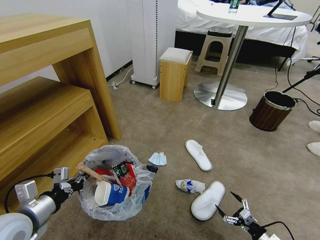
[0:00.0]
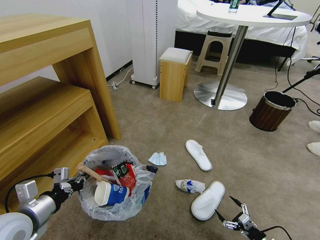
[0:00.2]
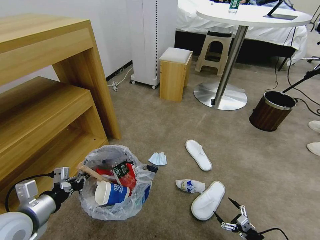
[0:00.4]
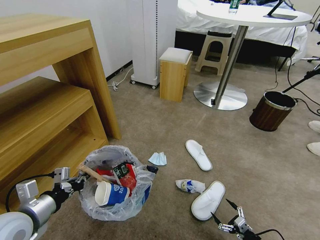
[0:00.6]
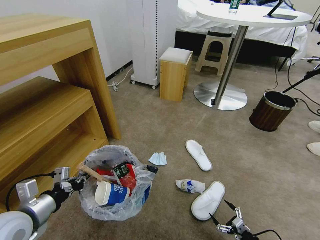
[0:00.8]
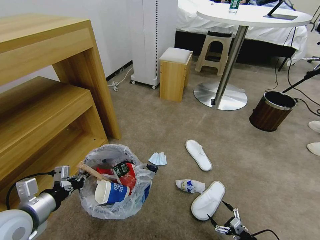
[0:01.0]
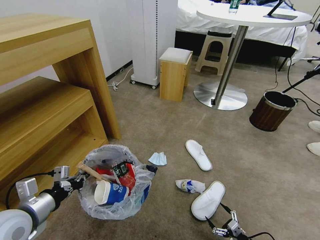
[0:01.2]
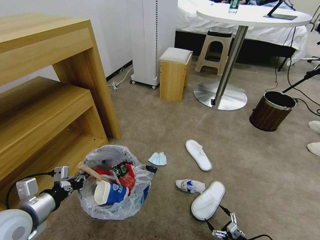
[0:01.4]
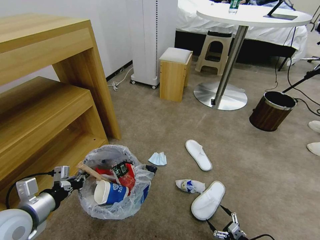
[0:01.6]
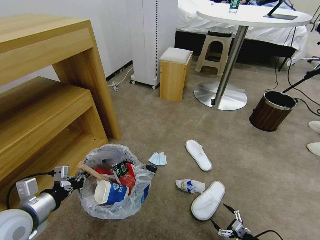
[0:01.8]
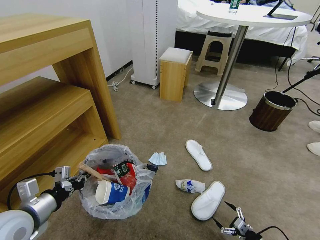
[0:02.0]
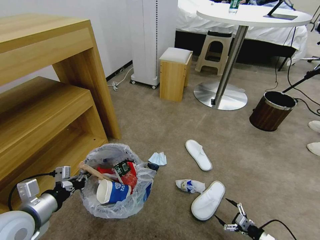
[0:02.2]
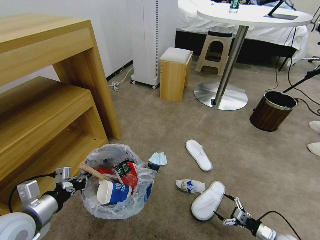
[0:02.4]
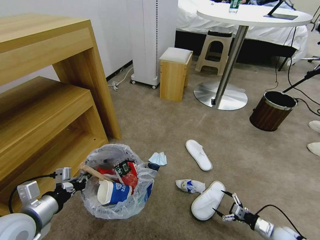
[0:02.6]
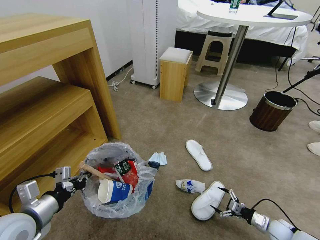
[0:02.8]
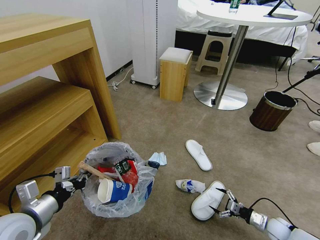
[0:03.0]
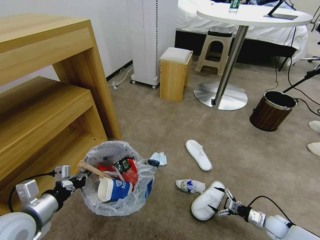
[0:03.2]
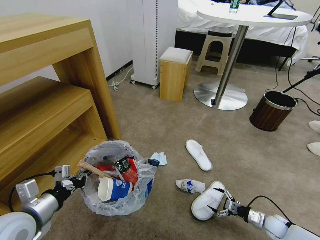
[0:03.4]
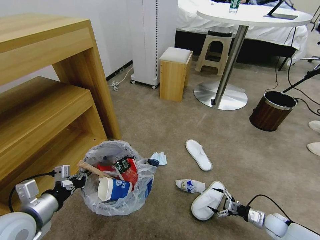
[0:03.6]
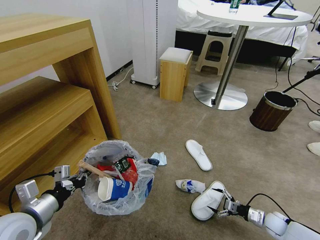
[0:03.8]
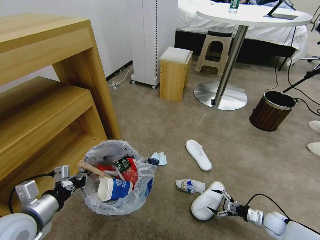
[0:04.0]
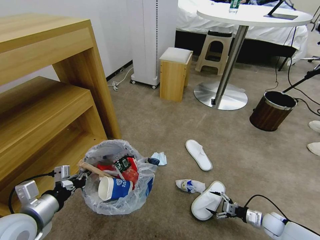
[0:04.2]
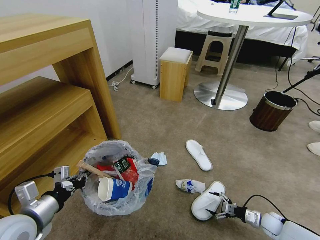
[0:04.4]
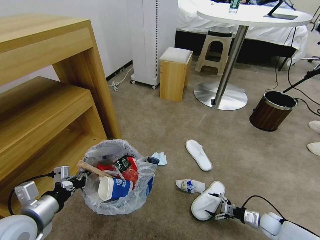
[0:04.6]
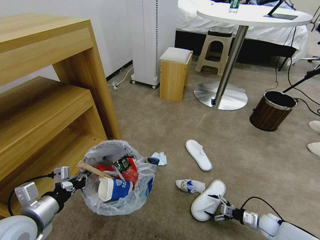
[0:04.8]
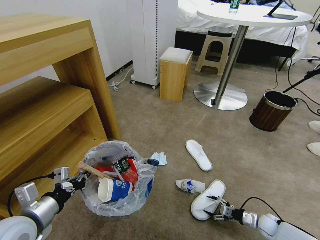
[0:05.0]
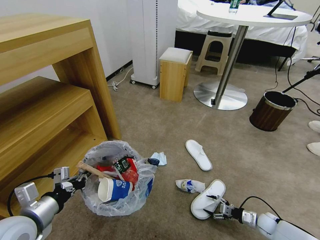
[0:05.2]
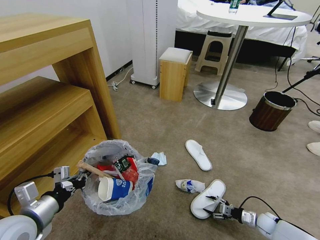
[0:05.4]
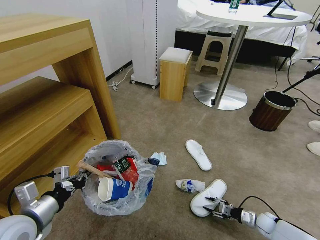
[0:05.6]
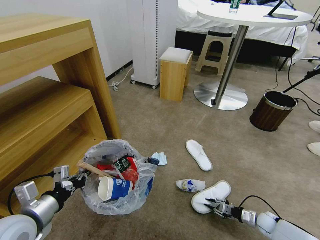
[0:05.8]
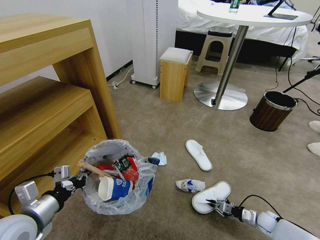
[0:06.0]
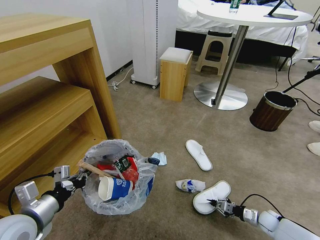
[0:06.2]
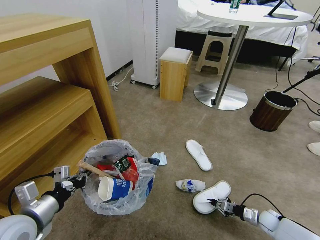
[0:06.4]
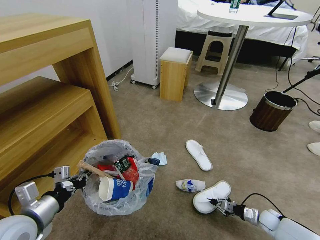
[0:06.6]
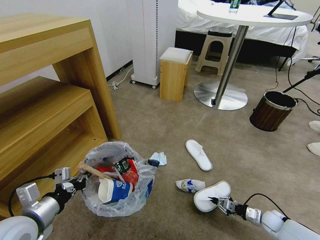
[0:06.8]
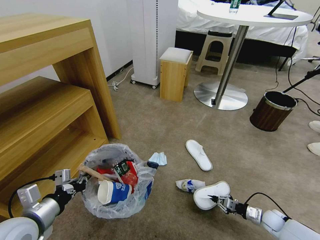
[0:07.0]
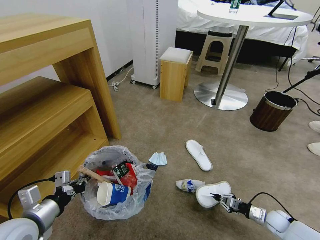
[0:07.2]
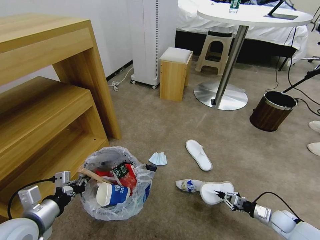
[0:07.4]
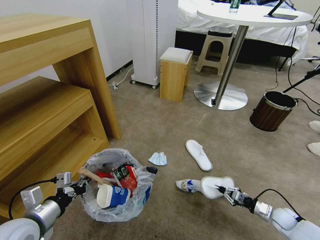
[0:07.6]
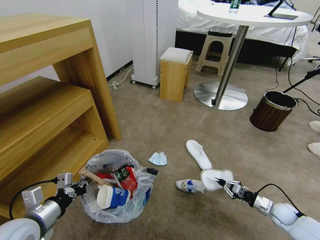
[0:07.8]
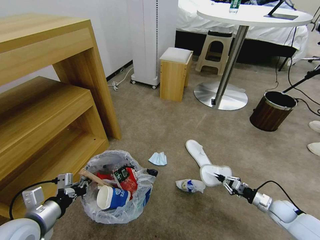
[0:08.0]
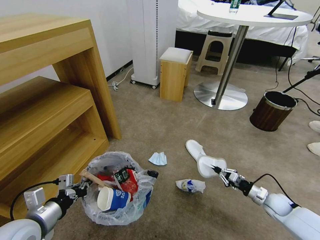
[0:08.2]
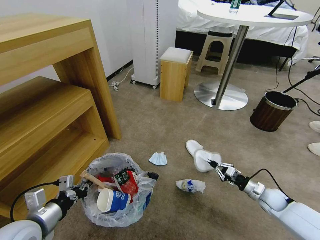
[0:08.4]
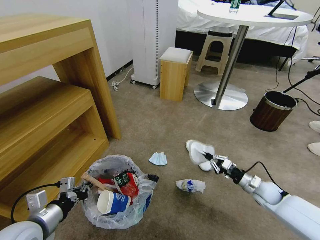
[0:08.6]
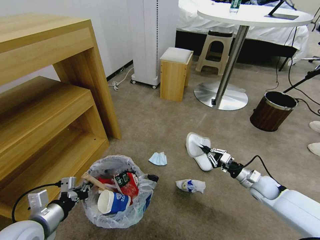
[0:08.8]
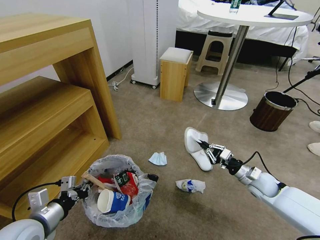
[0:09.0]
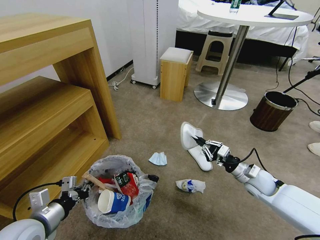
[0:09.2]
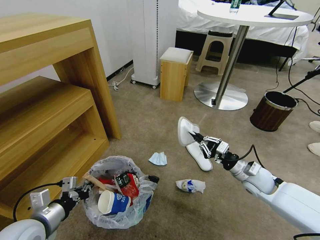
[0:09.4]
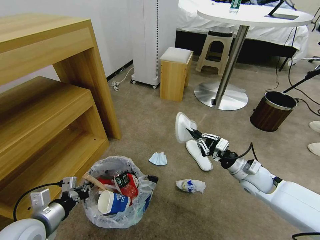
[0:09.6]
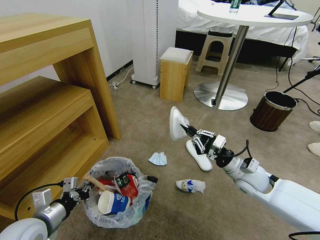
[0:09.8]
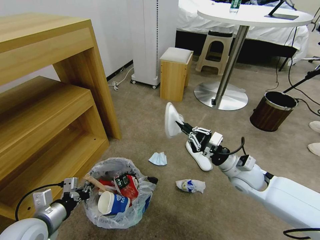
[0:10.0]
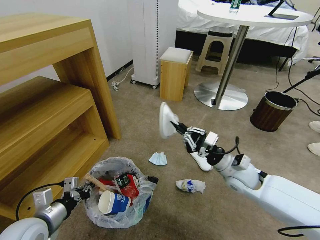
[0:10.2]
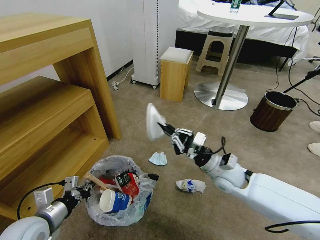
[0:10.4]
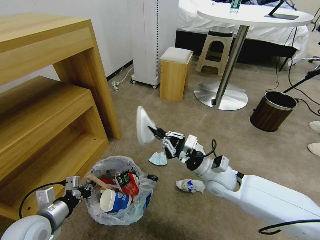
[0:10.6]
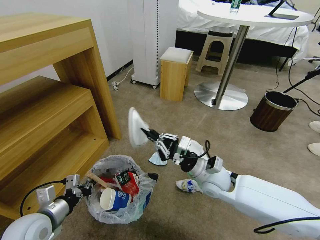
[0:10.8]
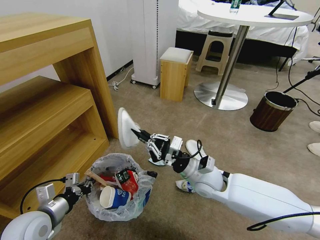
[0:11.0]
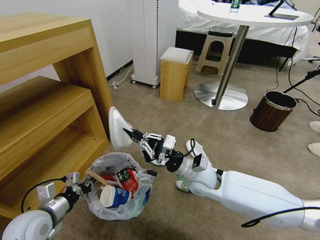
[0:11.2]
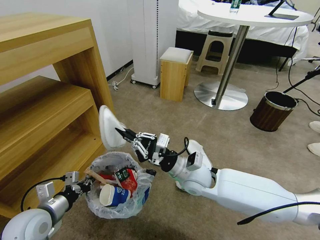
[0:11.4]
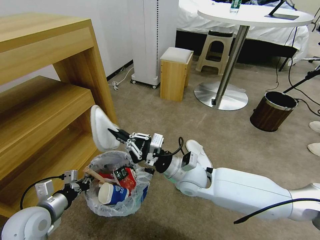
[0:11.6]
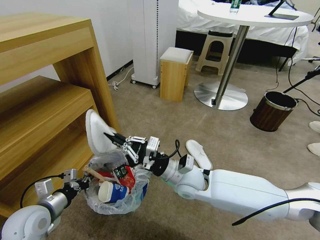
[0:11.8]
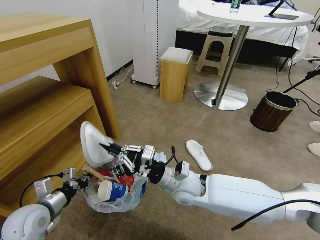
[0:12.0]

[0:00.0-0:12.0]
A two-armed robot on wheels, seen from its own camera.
Task of the whole recording: Pick up the trash bin and place the garbage on the floor into it.
0:00.0 to 0:01.6: The right gripper ends up roughly 5 cm from where it was.
0:01.6 to 0:03.0: The right gripper moves forward and to the right, some 15 cm.
0:03.0 to 0:04.4: The grippers move only a little.
0:04.4 to 0:06.0: The right gripper closes up.
0:06.0 to 0:07.6: The right gripper shifts approximately 5 cm upward.
0:07.6 to 0:09.0: The right gripper goes some 20 cm upward, to the left and forward.
0:09.0 to 0:10.4: The right gripper goes some 20 cm to the left and upward.
0:10.4 to 0:12.0: The right gripper is displaced to the left by approximately 15 cm.

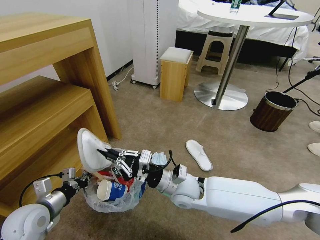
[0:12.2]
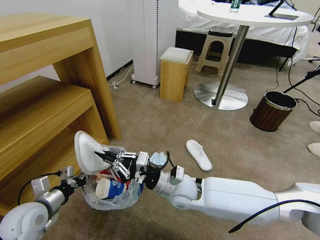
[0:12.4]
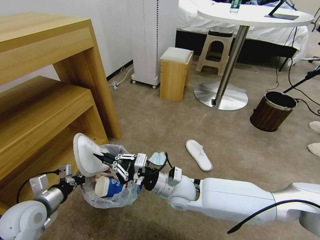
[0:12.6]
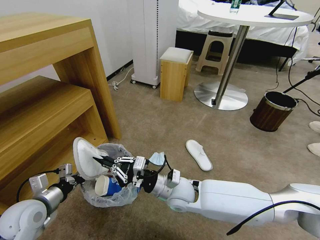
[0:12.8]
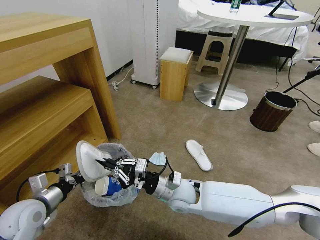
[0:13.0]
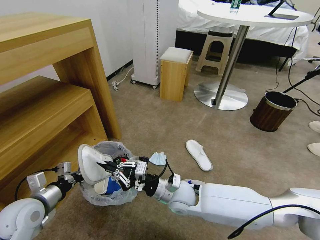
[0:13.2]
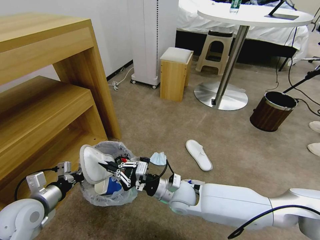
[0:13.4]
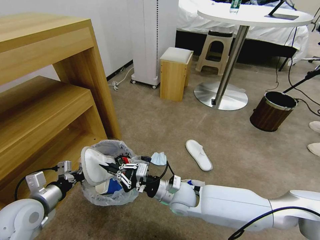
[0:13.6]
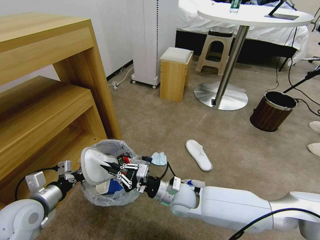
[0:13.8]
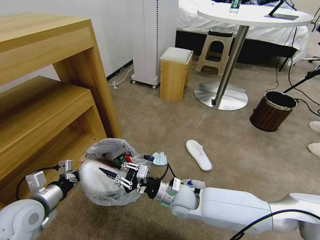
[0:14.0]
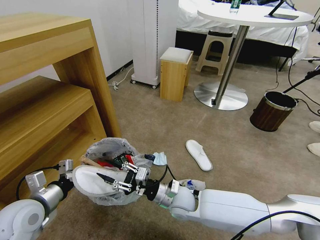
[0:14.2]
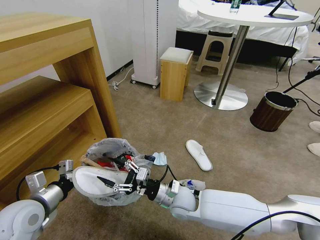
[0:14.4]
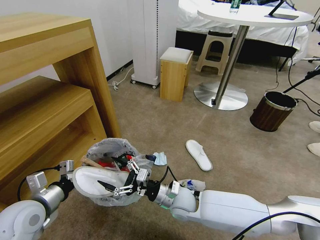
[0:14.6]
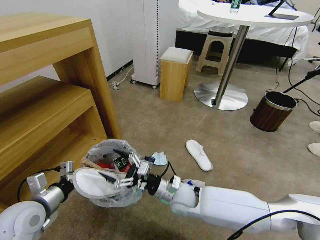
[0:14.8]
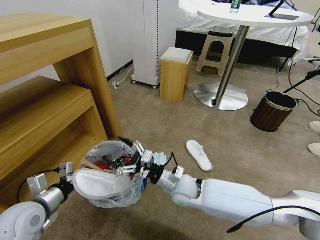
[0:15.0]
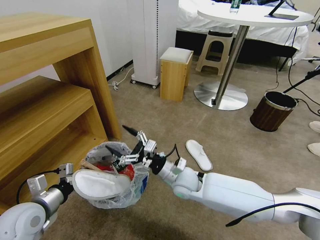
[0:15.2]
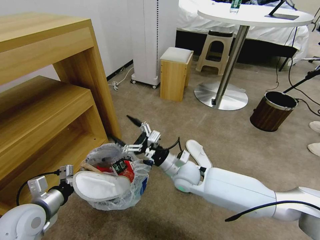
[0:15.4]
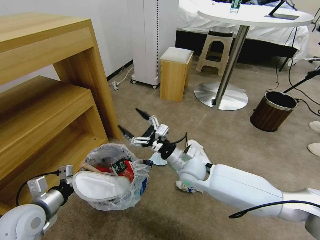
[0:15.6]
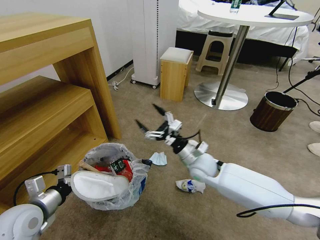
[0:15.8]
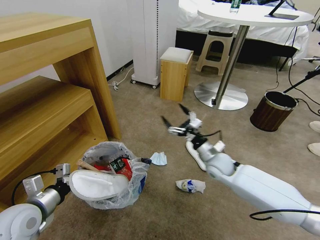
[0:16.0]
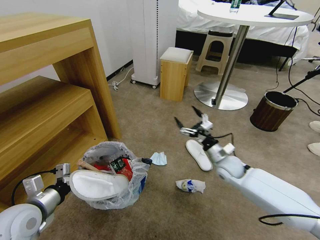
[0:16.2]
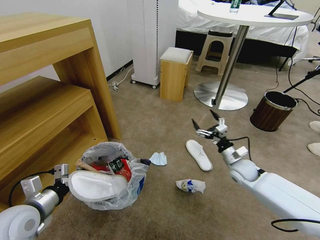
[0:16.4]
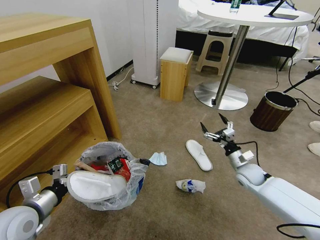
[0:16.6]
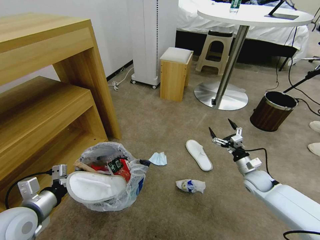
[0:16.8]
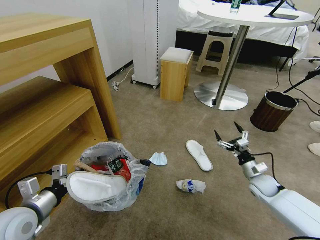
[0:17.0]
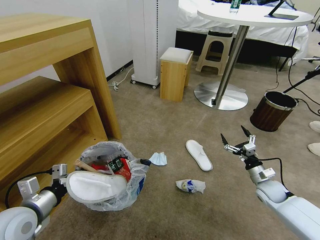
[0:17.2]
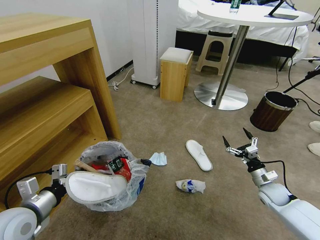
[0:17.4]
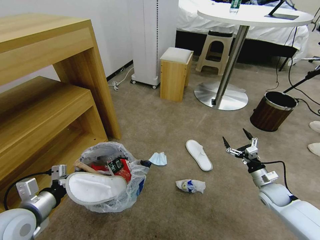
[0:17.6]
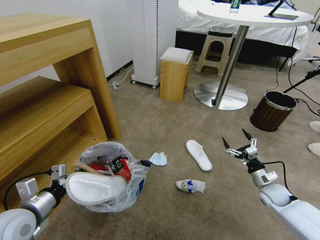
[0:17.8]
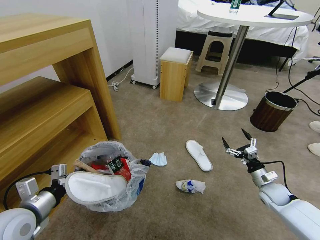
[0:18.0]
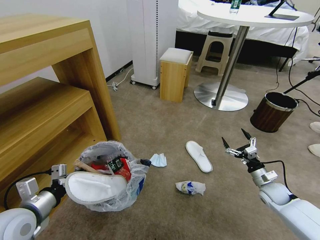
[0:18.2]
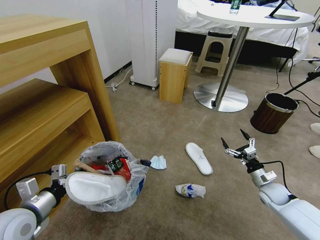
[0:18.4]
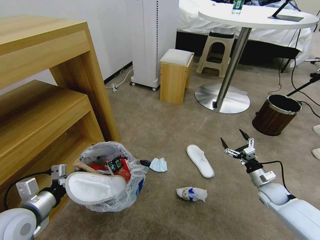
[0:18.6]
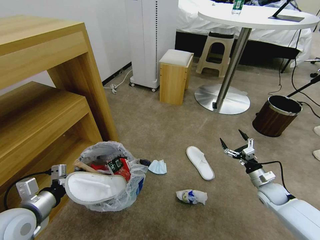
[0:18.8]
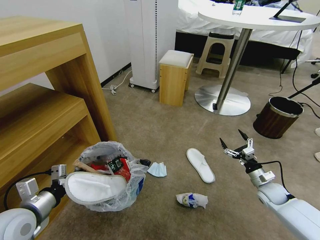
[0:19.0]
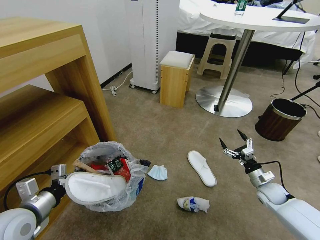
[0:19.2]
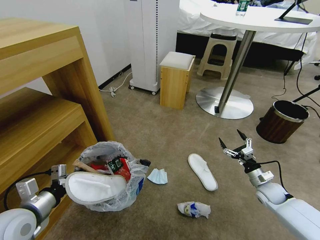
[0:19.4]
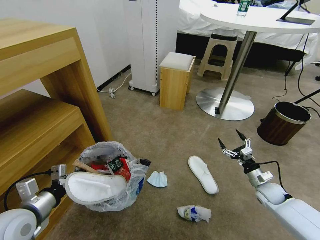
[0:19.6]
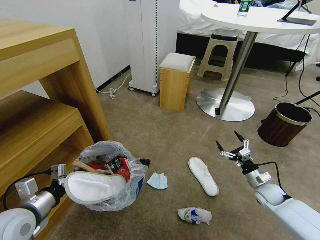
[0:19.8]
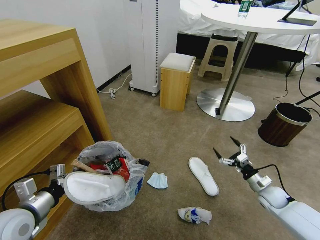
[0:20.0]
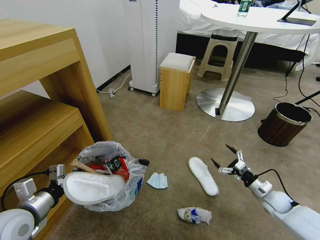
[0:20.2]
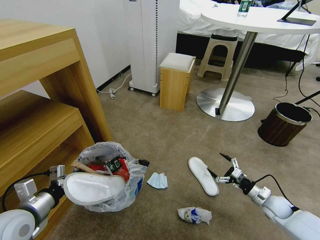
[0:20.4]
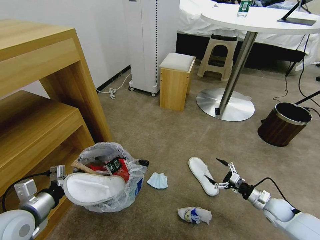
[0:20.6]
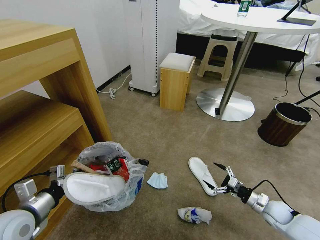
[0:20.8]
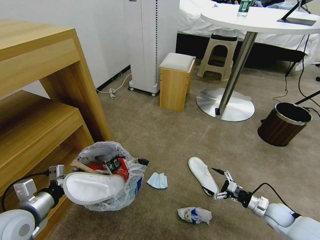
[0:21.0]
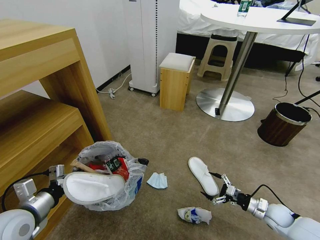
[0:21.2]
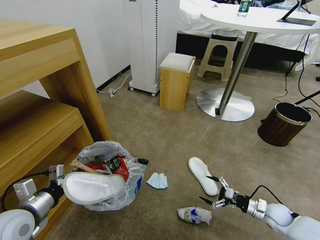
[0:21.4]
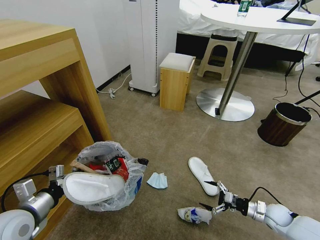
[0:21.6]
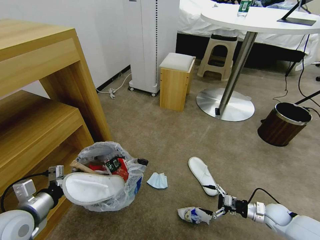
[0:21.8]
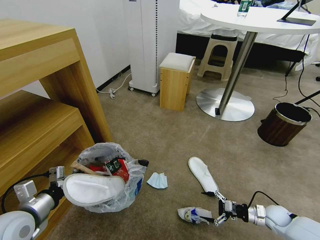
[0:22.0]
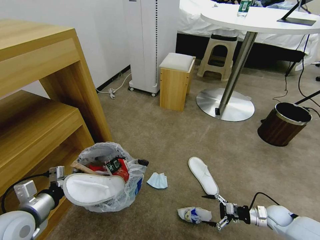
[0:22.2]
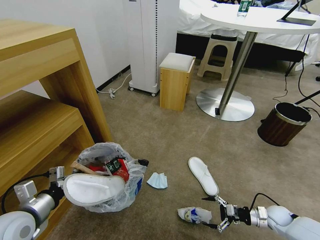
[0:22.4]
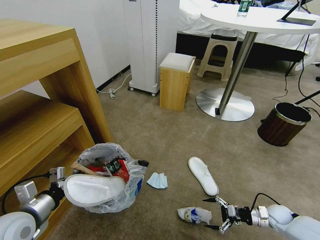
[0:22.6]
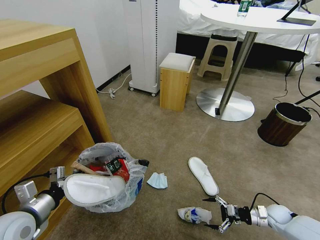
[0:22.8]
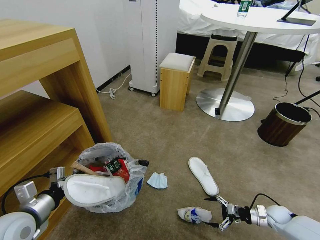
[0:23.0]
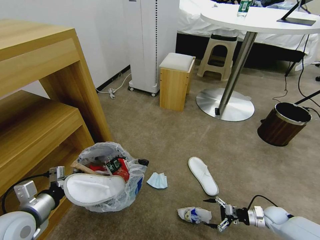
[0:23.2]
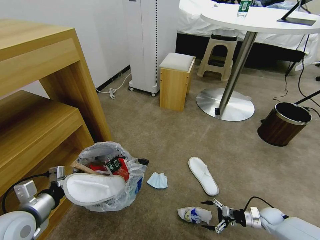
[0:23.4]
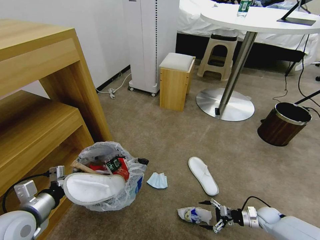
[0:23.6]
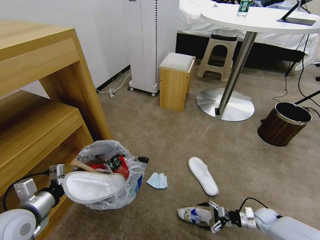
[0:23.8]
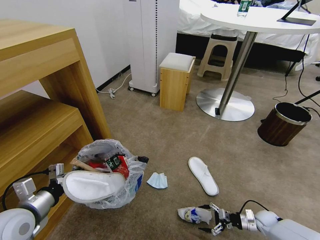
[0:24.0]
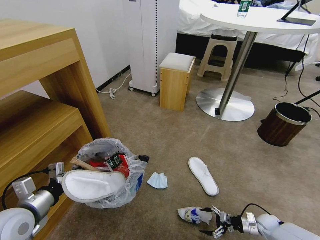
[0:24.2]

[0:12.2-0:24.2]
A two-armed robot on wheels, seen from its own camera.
Task of the whole recording: Pick up the trash bin and place the garbage on the floor into it.
0:12.2 to 0:13.8: The right gripper shifts roughly 5 cm downward.
0:13.8 to 0:15.2: The right gripper moves about 5 cm, and opens.
0:15.2 to 0:16.6: The right gripper moves to the right, about 30 cm.
0:16.6 to 0:18.2: The right gripper moves to the right and backward, roughly 10 cm.
0:19.8 to 0:21.2: The right gripper heads backward, covering some 5 cm.
0:22.6 to 0:24.2: The right gripper heads downward, covering some 10 cm.
